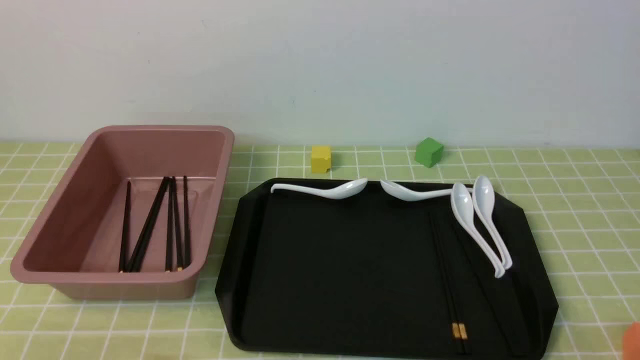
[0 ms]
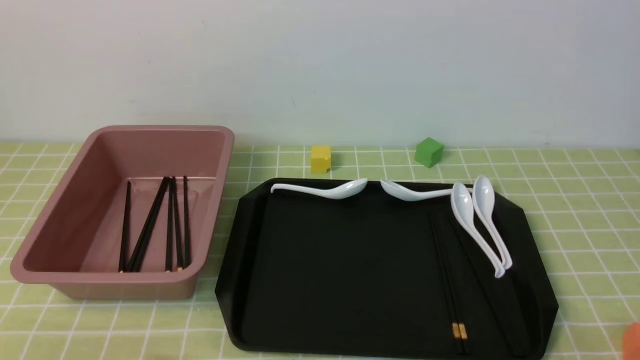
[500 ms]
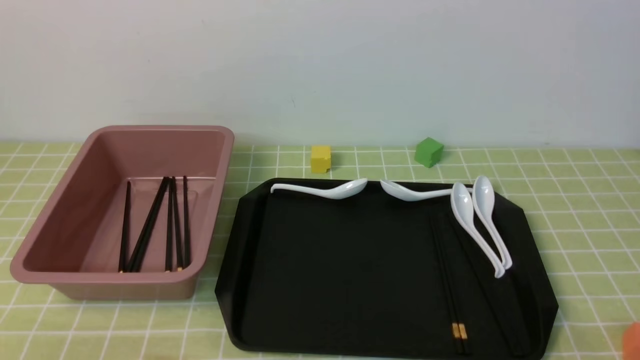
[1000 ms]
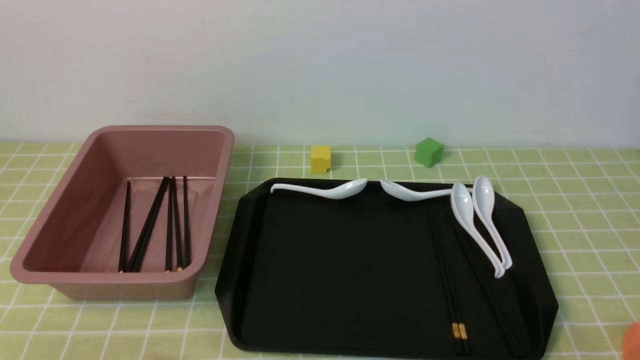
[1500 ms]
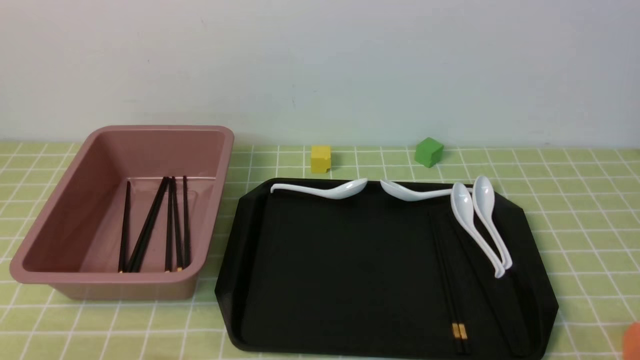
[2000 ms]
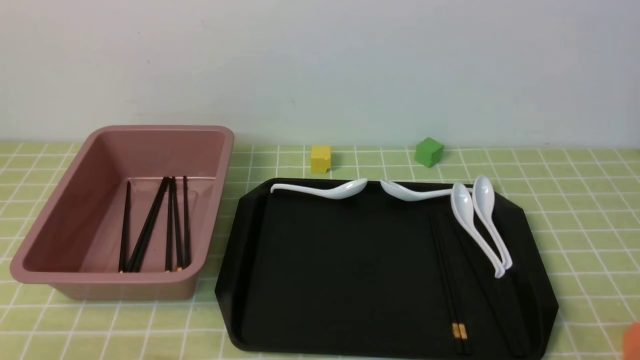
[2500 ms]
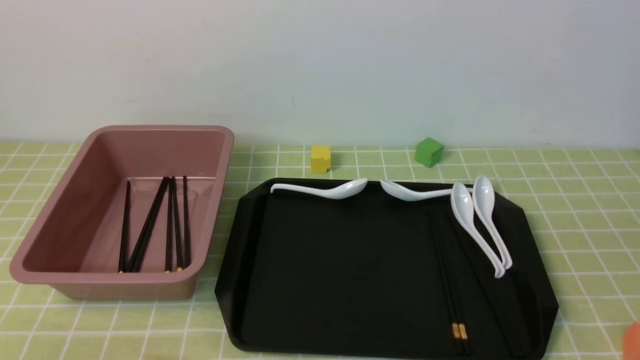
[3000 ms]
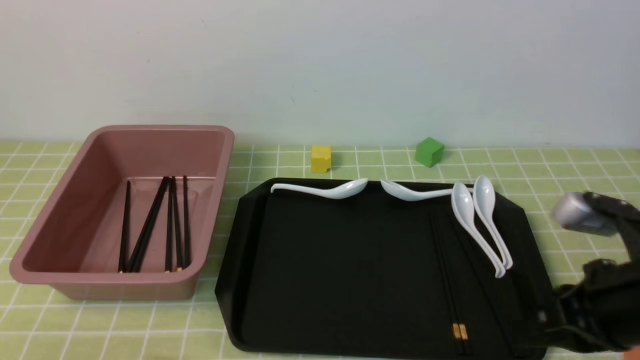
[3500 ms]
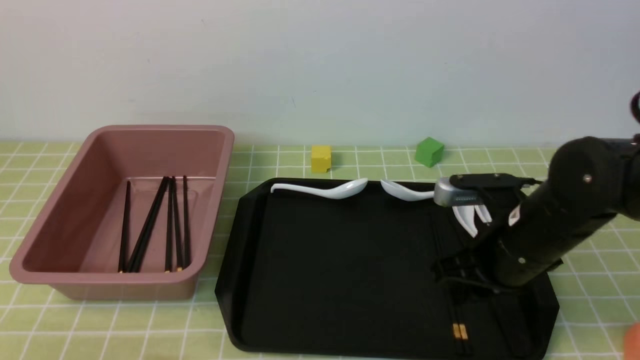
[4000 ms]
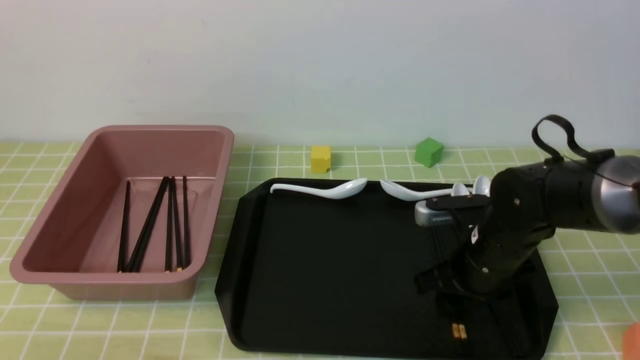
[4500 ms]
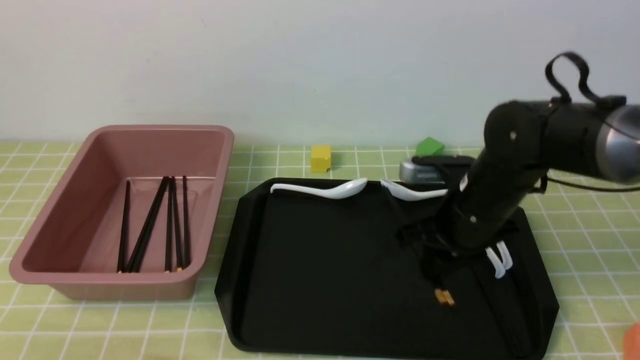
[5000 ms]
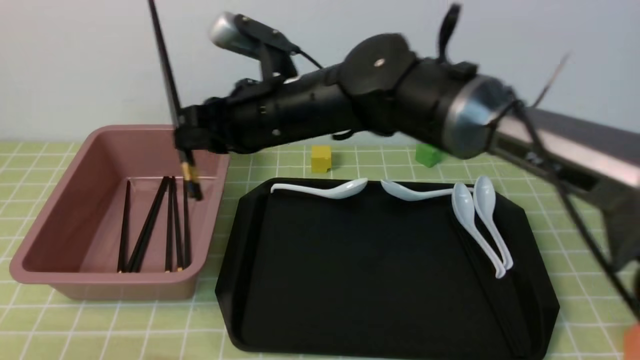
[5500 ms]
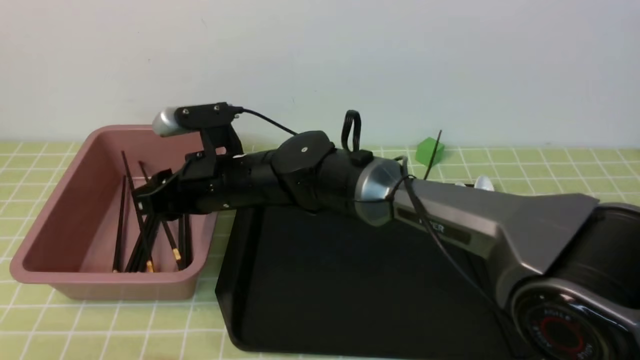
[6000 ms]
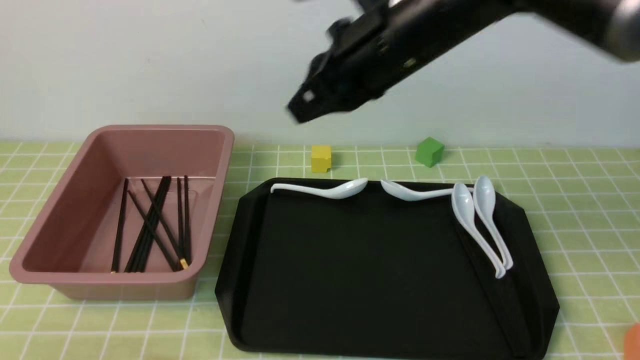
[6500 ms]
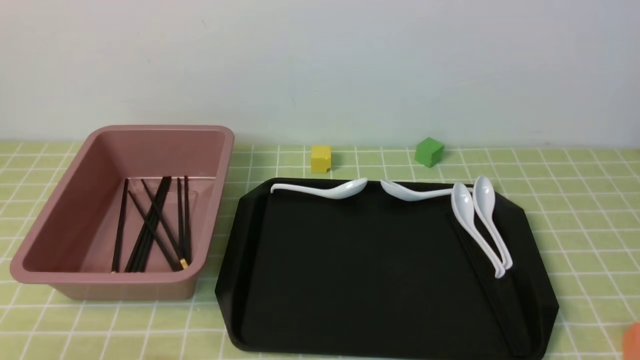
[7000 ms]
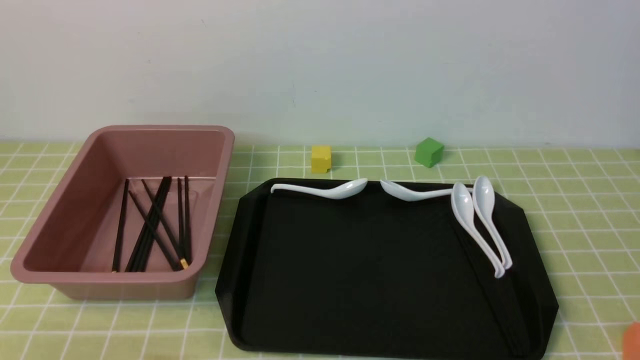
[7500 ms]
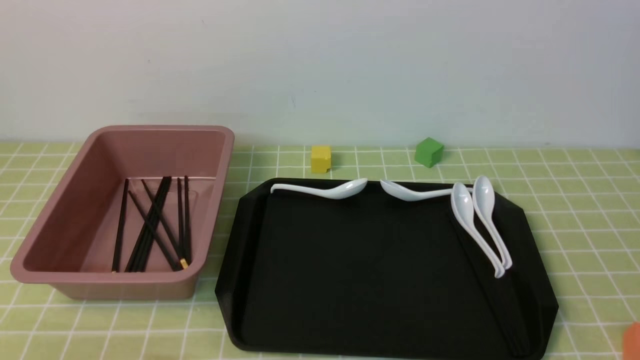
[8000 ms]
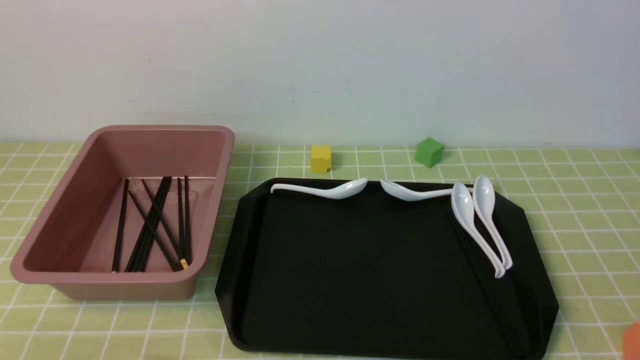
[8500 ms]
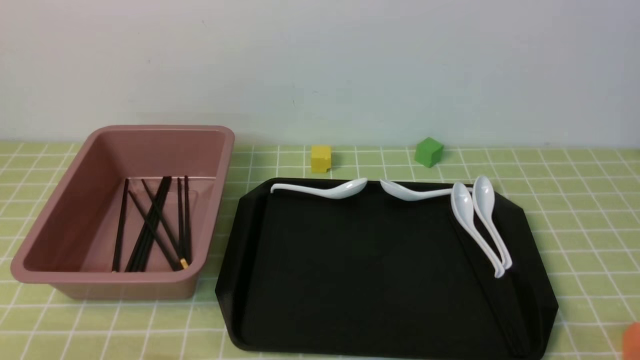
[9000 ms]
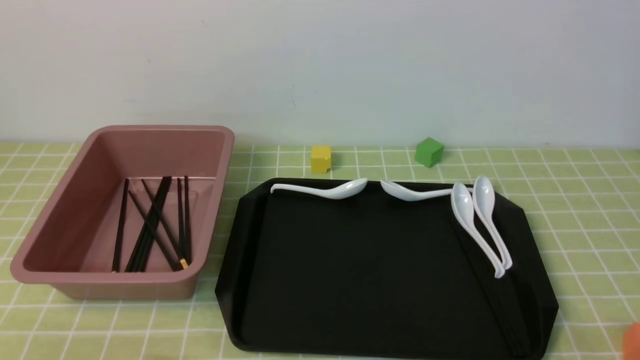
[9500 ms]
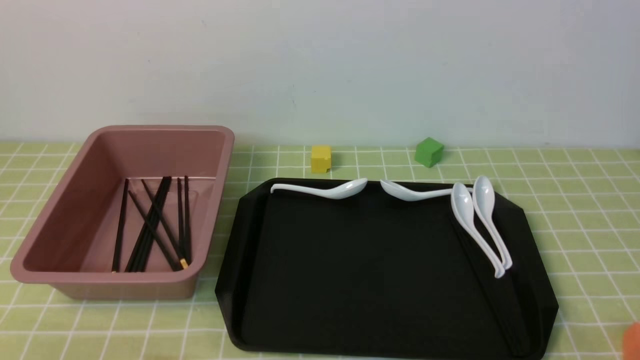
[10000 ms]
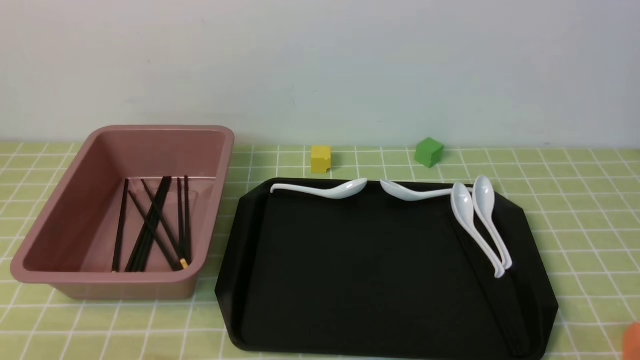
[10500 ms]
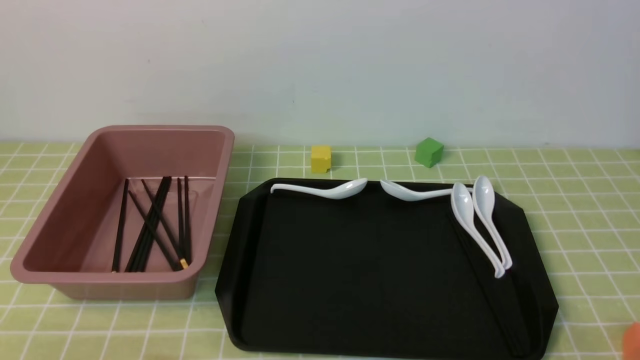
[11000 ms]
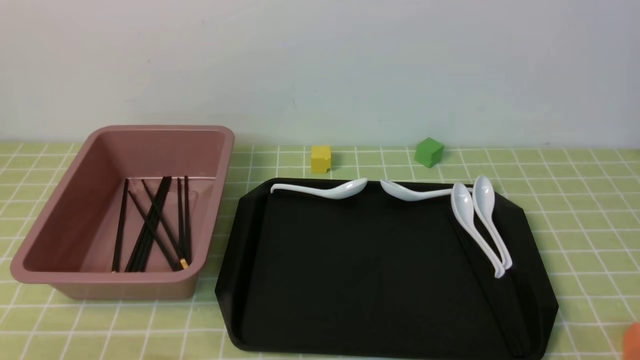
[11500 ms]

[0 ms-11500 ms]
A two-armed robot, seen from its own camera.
Step, 0 ms to 5000 ms: use the right arm to grab a pair of chopsticks.
Step, 5500 ms to 6000 ms: use the right arm to put the chopsticks into the lunch box.
2000 ms to 4000 ms: The right gripper moves forward and to the left, roughly 25 cm, and closes, then reopens.
4000 ms to 6000 ms: The right gripper moves to the left, about 25 cm.
6000 ms to 7500 ms: The right gripper heads to the right and backward, covering about 50 cm, and closes.
9500 ms to 11500 ms: Both grippers stay put.
